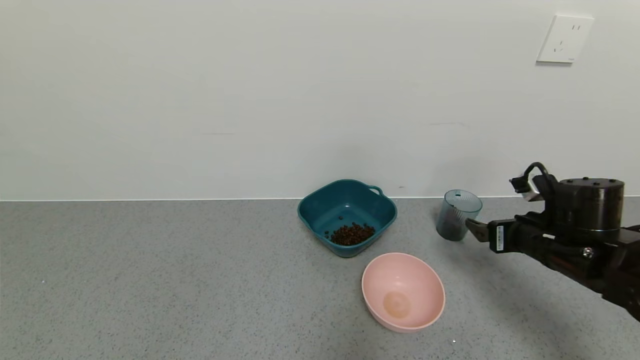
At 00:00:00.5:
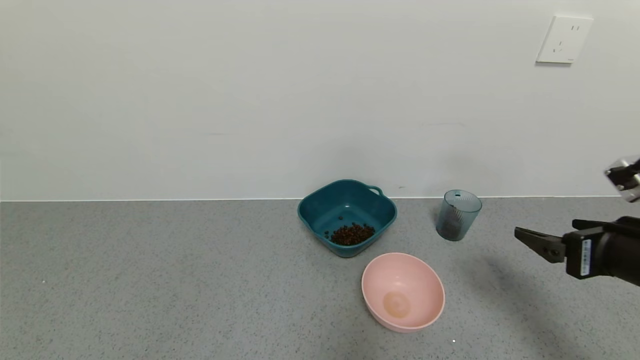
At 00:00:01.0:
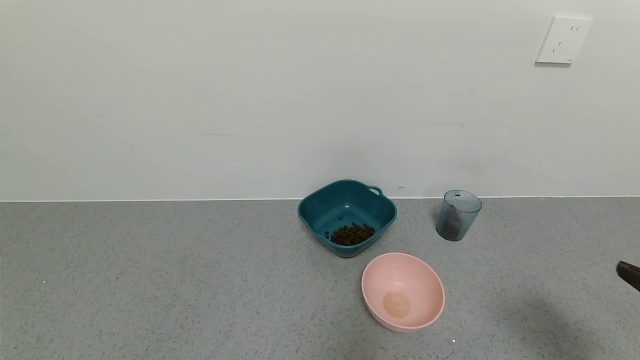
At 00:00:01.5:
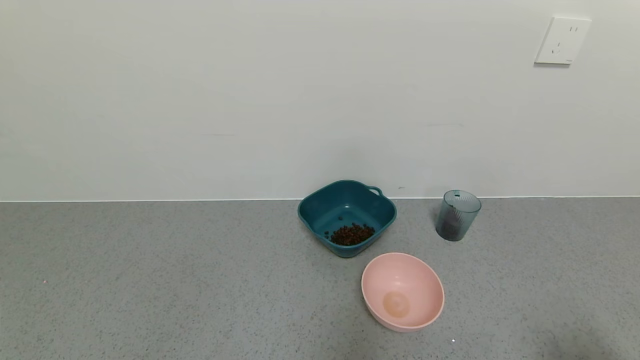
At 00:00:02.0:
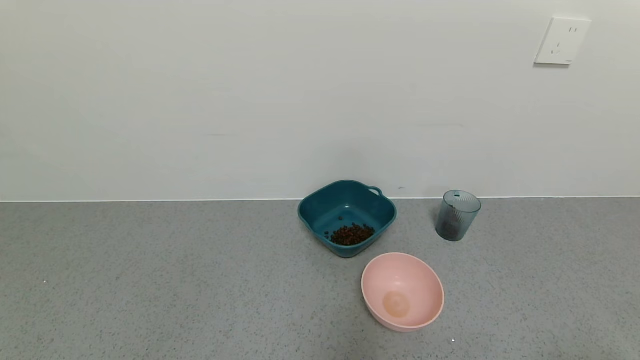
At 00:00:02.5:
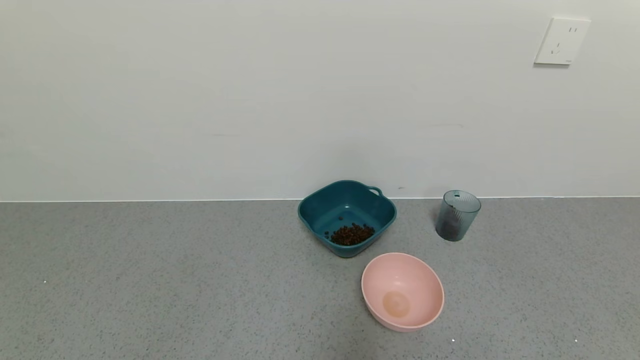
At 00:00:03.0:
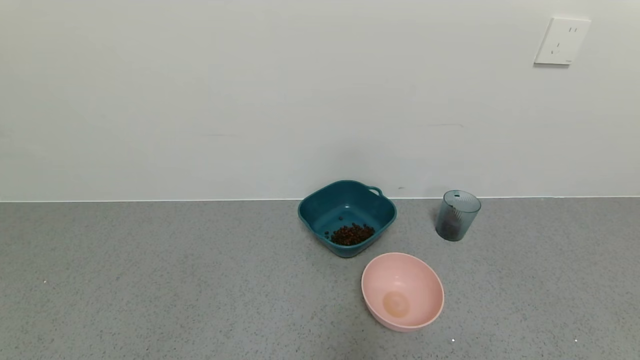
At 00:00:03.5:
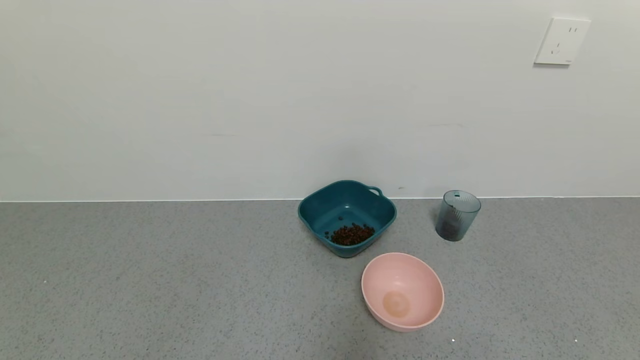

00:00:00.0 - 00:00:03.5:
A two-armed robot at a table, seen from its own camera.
Task of the whole recording: use a gripper to pick up the cup and pour the solid into a bowl or tray.
00:00:00.0 - 00:00:02.0: The right gripper is displaced backward by approximately 30 cm.

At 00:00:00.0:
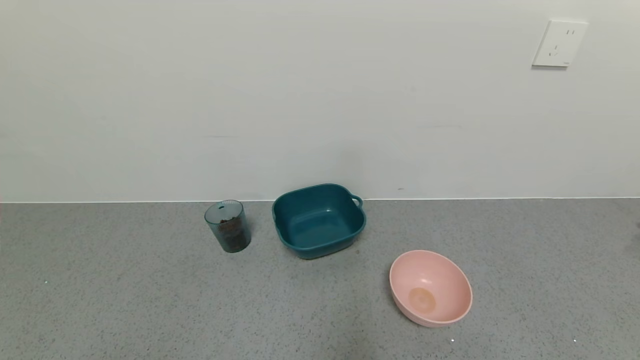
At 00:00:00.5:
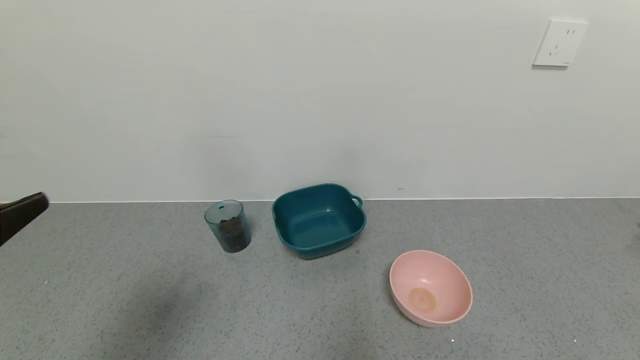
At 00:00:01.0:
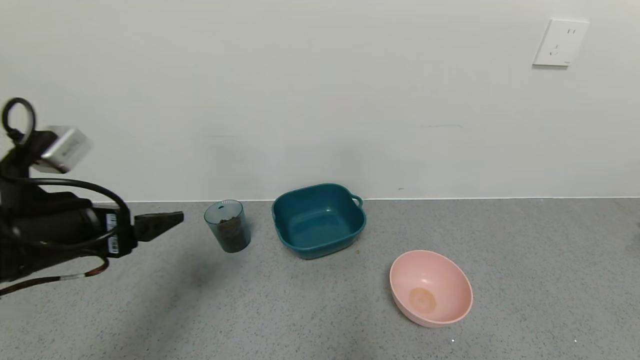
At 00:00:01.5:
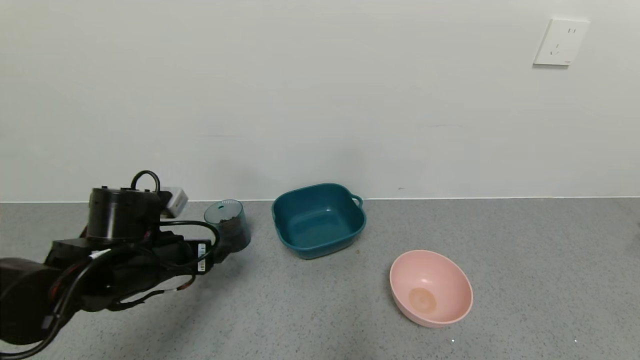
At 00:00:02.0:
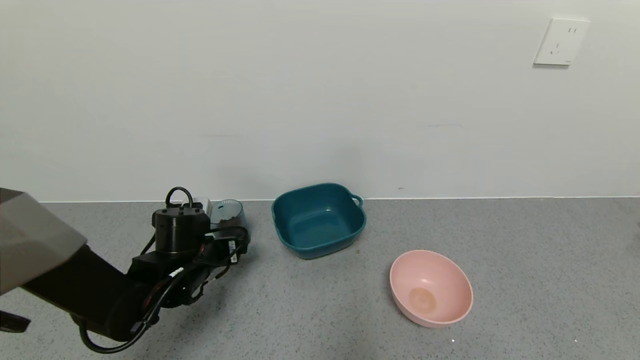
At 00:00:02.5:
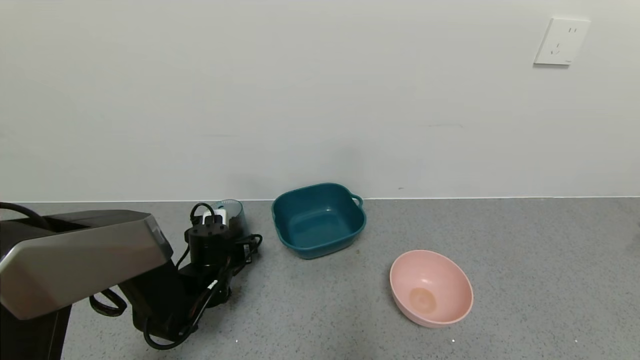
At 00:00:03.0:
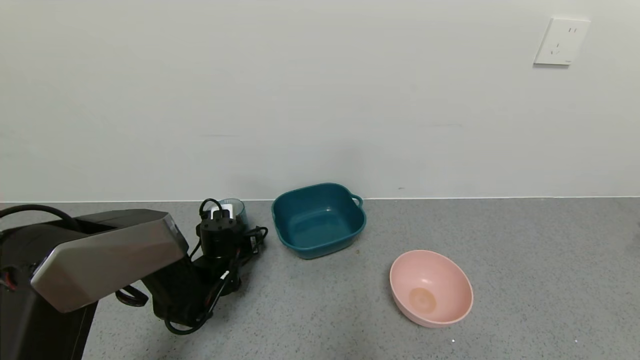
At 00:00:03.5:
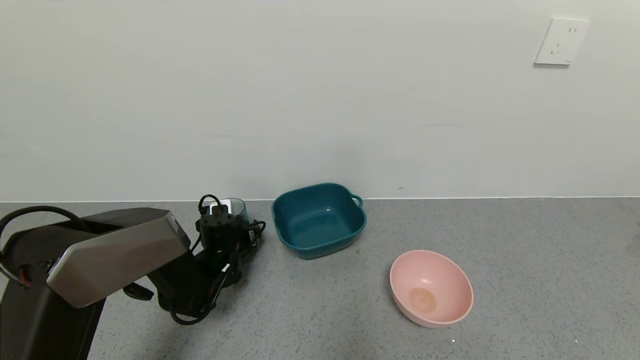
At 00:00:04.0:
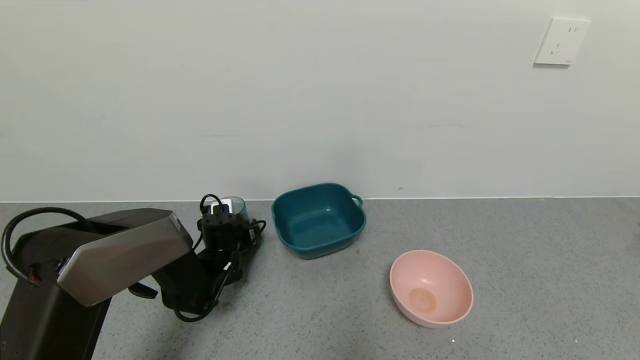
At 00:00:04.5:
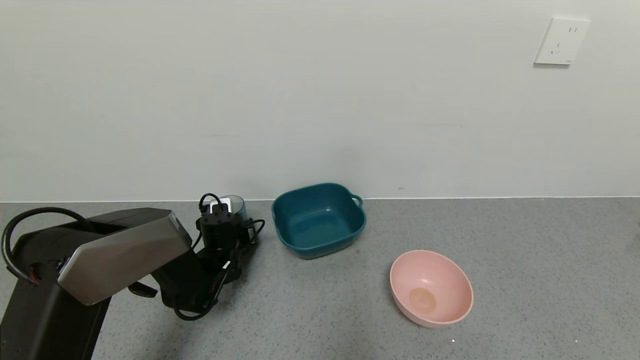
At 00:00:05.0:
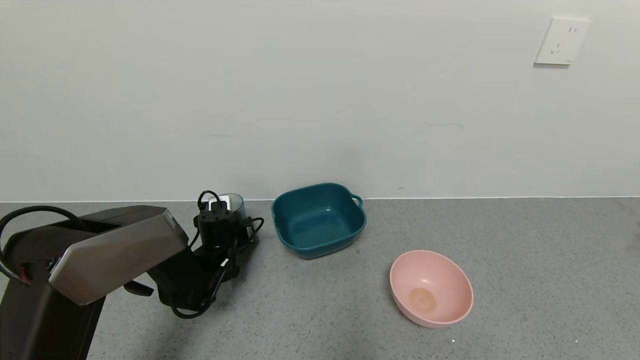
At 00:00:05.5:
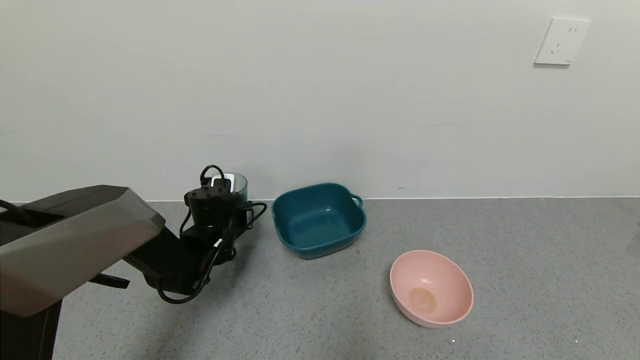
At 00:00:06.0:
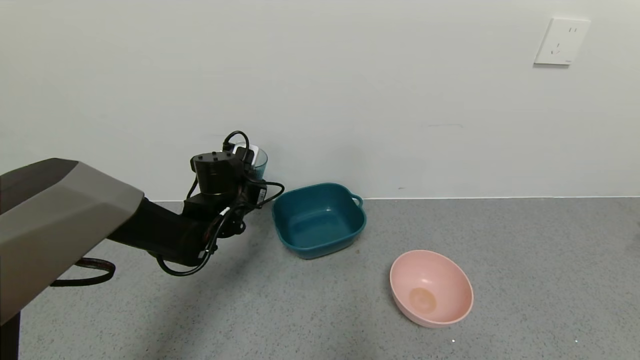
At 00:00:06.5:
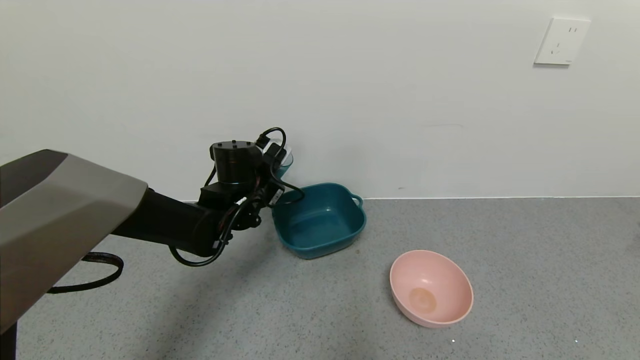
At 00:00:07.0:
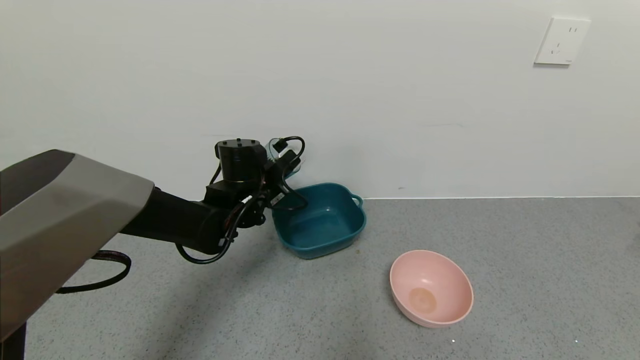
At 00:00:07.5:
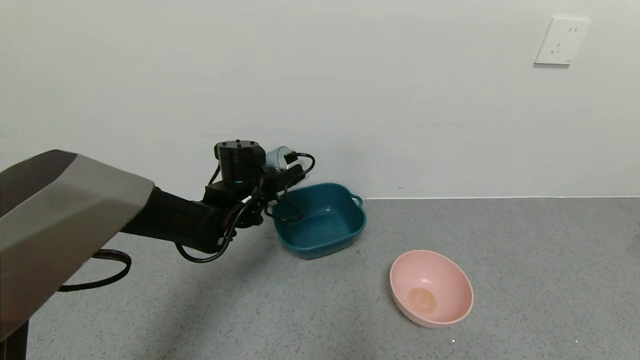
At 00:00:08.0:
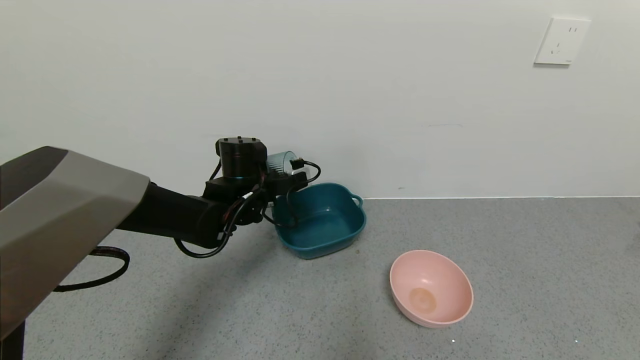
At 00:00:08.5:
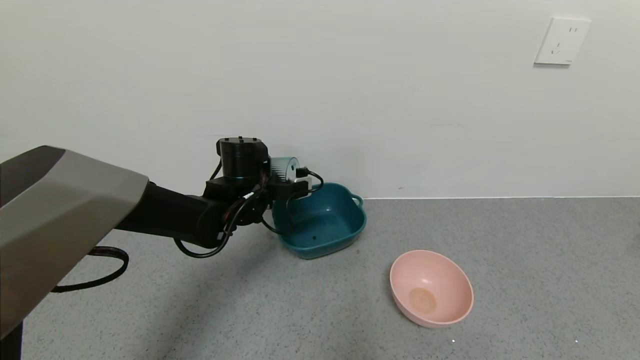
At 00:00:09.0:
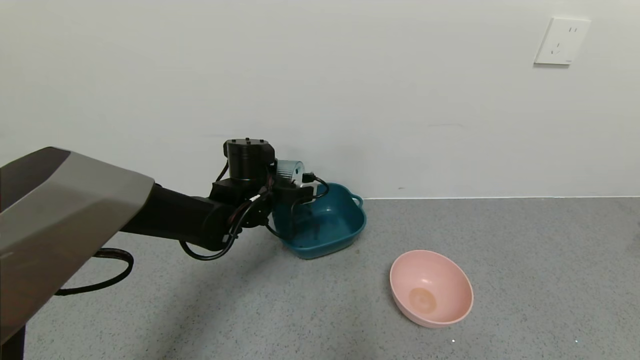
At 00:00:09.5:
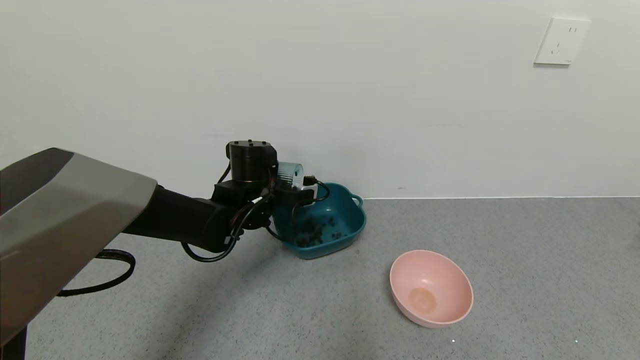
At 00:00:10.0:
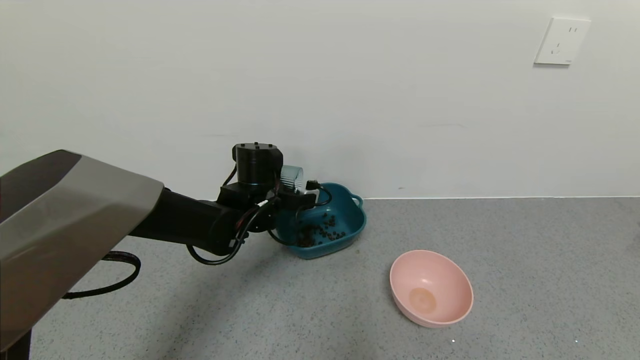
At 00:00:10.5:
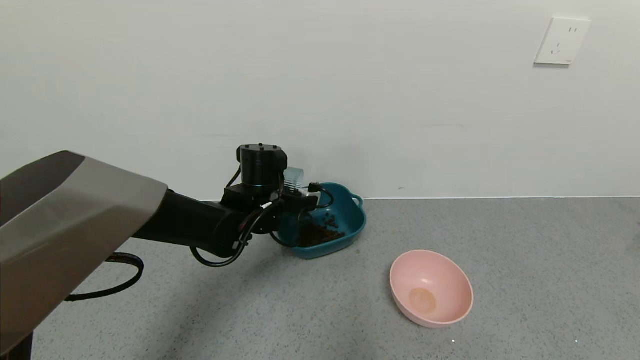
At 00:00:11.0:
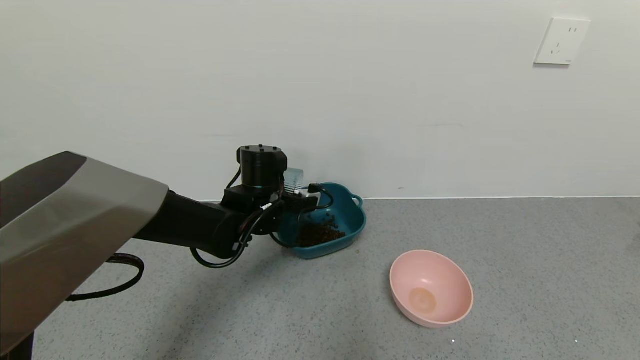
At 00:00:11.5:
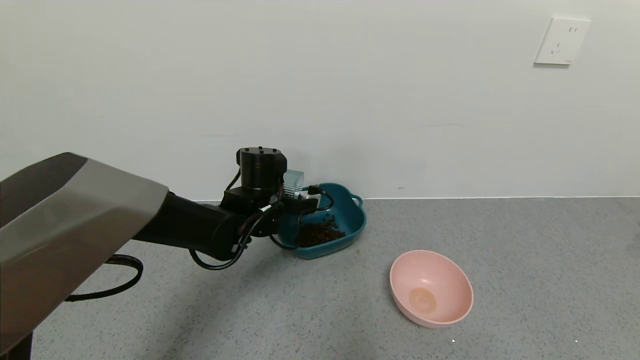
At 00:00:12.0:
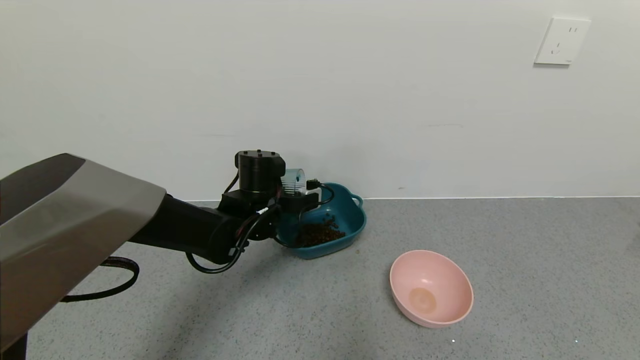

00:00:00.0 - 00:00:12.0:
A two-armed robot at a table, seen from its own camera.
Task of the whole recording: use a gripper to pick up the cup and pour the solid into a bowl or tray.
Step, 00:00:00.0 - 00:00:04.0: Grasp the glass of coffee beans with the left gripper.
00:00:00.0 - 00:00:02.0: The left gripper is displaced forward and downward by approximately 30 cm.
00:00:02.0 - 00:00:04.0: The left gripper heads forward and downward, covering some 10 cm, and closes up.
00:00:04.0 - 00:00:06.0: The left gripper shifts about 15 cm upward, and closes up.
00:00:10.0 - 00:00:12.0: The grippers move only a little.

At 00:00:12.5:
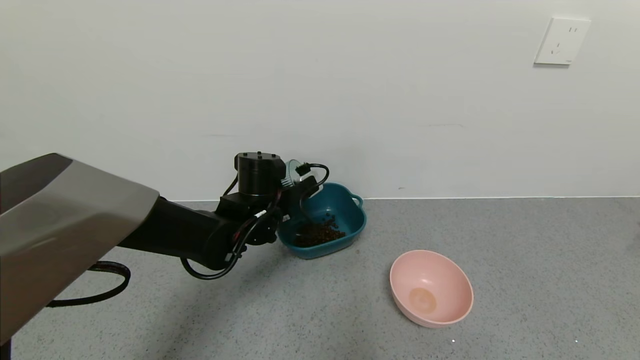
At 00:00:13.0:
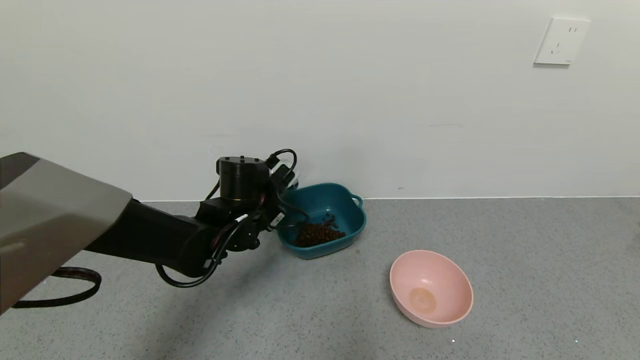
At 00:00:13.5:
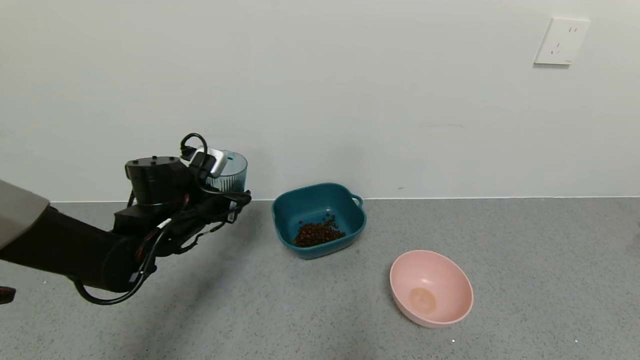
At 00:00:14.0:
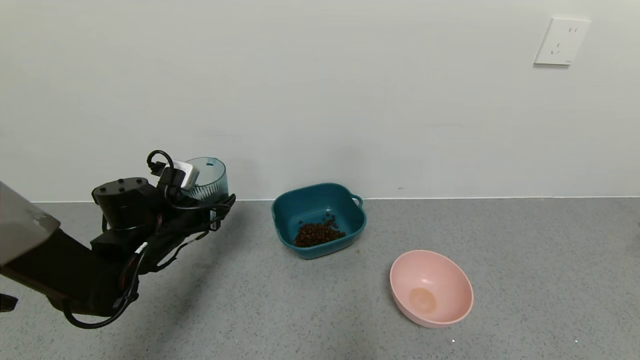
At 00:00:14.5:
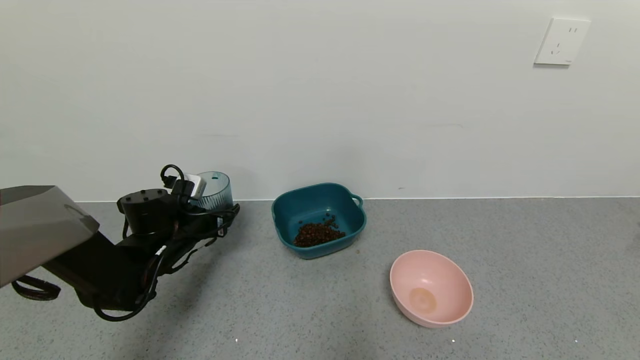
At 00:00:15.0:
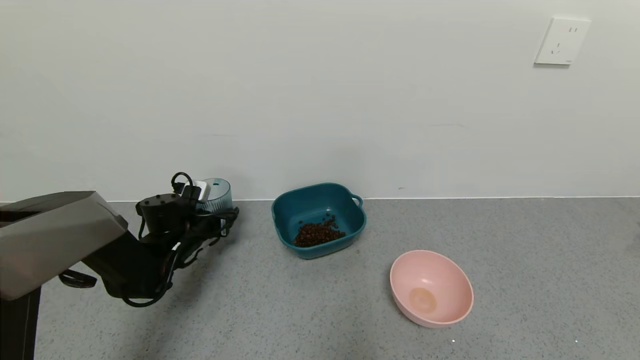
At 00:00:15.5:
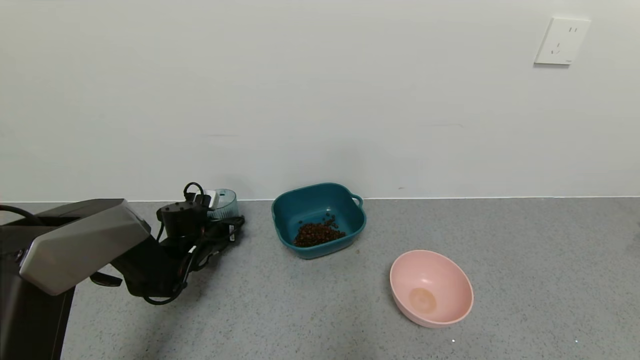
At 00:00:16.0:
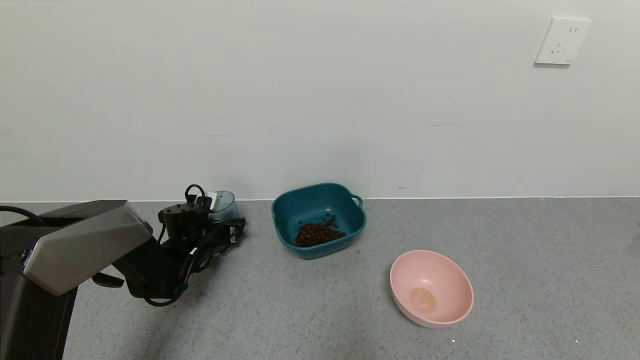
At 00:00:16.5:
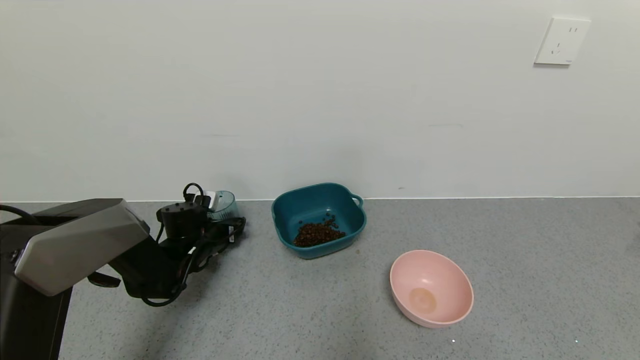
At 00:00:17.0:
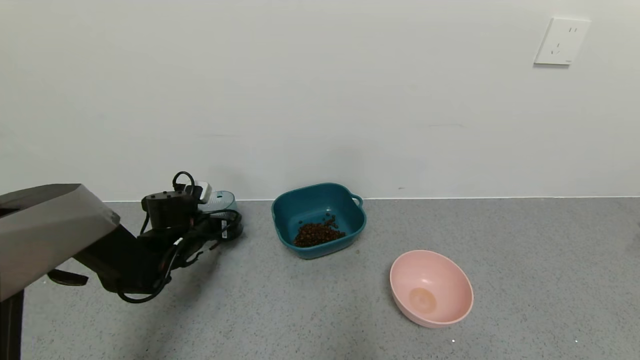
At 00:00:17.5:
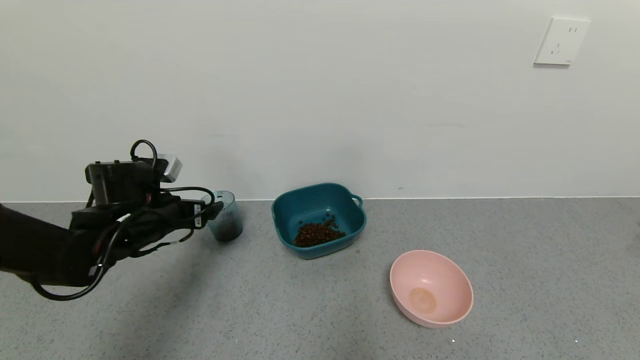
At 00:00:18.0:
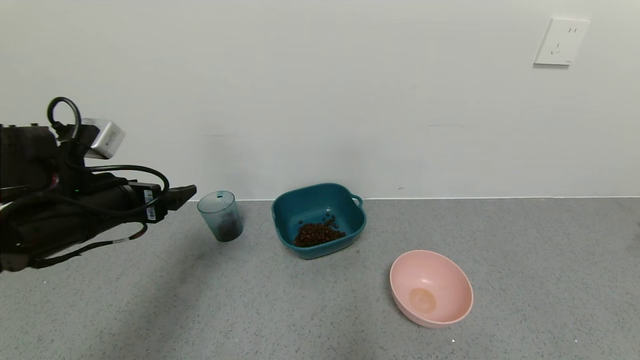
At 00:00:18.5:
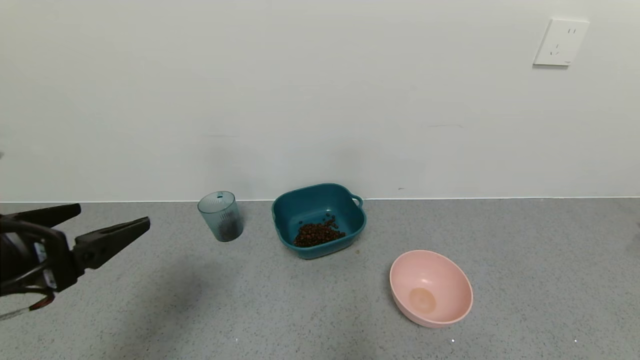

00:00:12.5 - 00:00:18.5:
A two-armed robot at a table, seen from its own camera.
Task of the whole recording: use a gripper to pick up the cup and pour the solid into a bowl or tray.
Step, 00:00:13.5 - 00:00:17.0: Place the glass cup with the left gripper.
00:00:12.5 - 00:00:14.5: The left gripper moves to the left, about 15 cm.
00:00:14.5 - 00:00:16.5: The left gripper travels downward and forward by some 10 cm, and opens up.
00:00:16.5 - 00:00:18.5: The left gripper shifts about 35 cm backward and upward.
